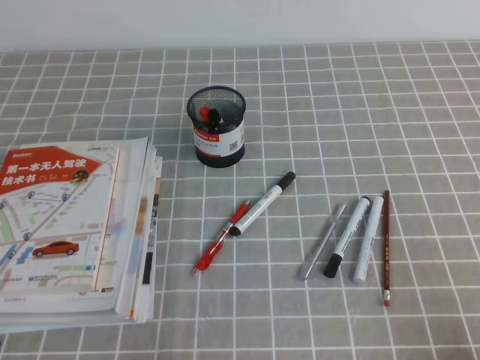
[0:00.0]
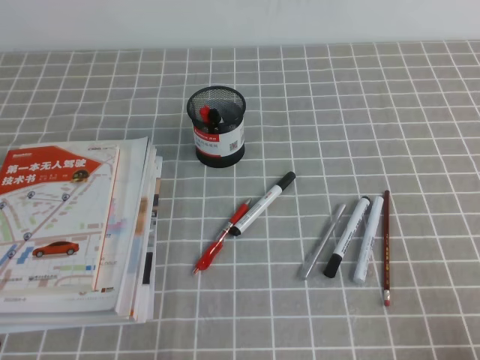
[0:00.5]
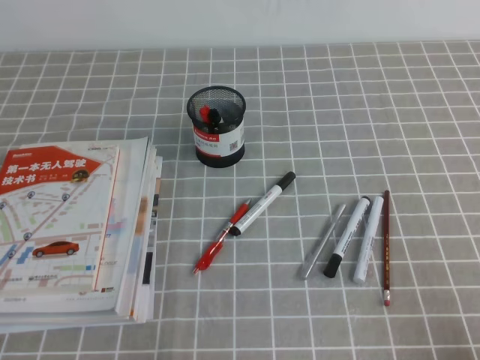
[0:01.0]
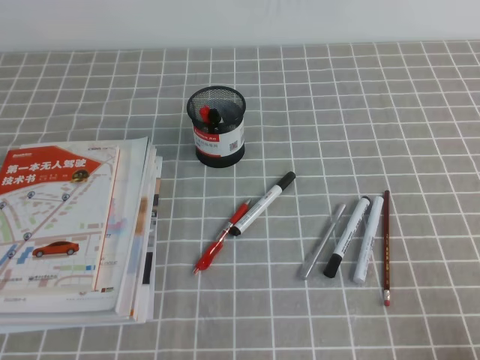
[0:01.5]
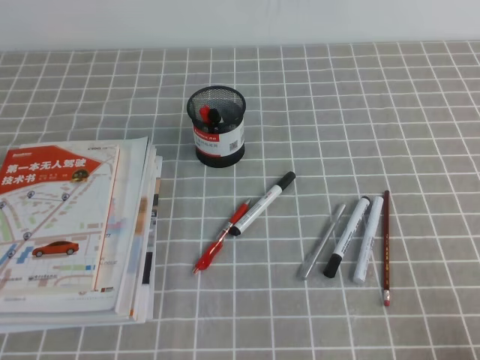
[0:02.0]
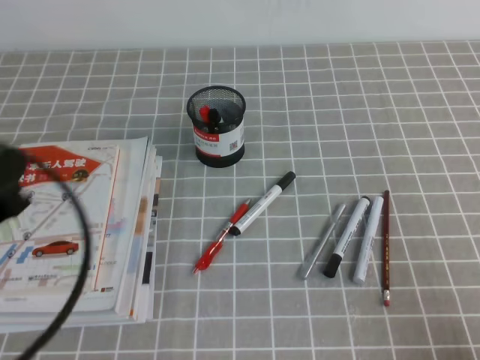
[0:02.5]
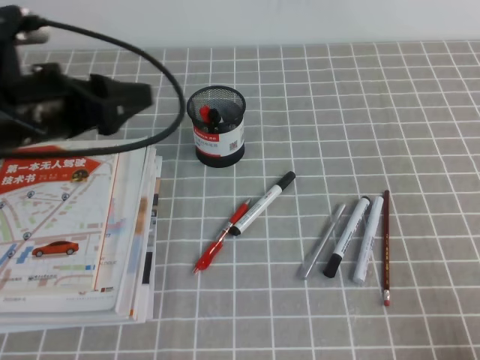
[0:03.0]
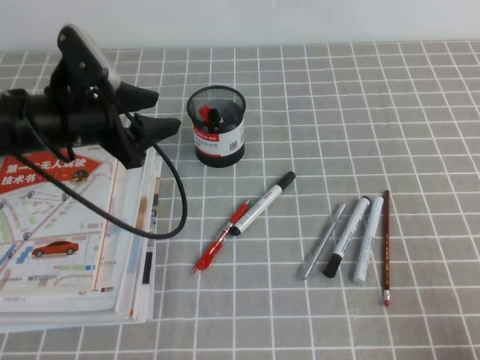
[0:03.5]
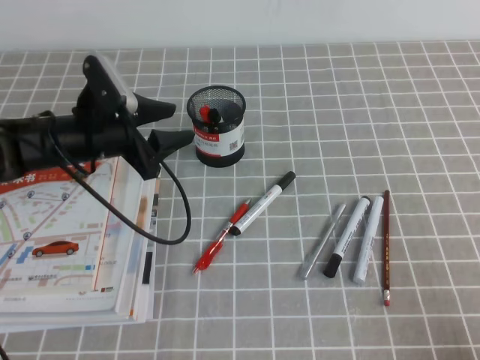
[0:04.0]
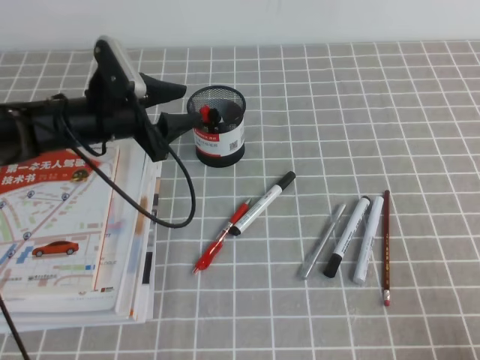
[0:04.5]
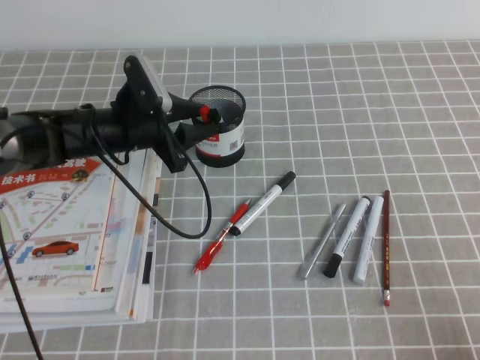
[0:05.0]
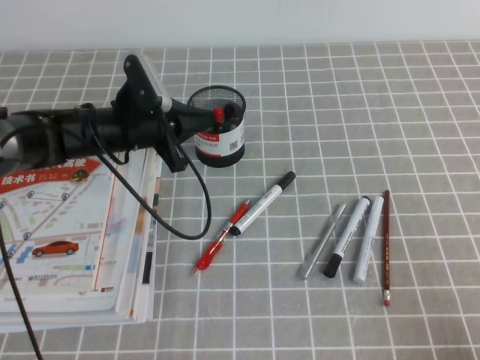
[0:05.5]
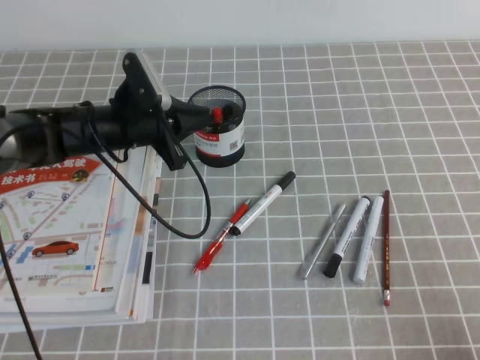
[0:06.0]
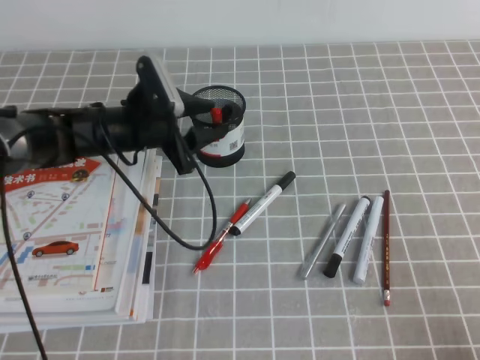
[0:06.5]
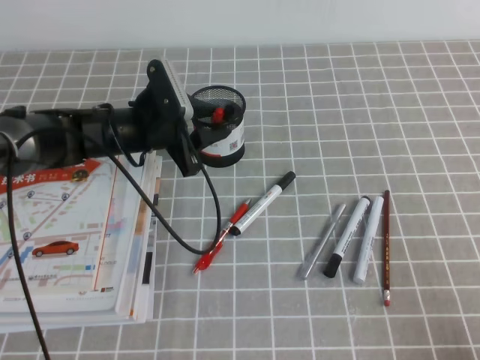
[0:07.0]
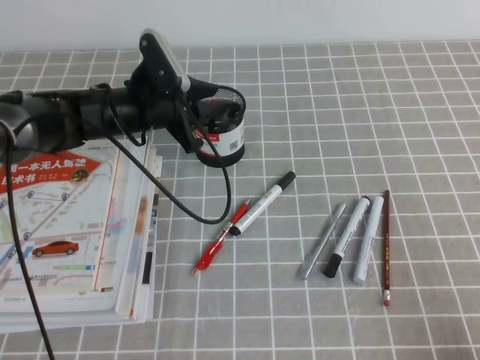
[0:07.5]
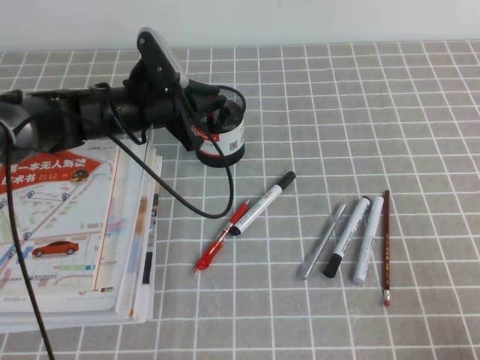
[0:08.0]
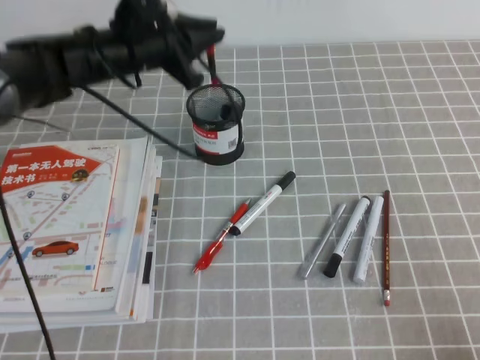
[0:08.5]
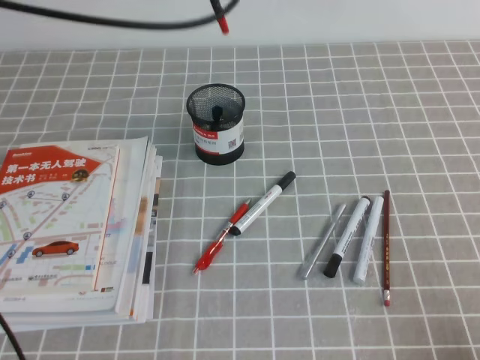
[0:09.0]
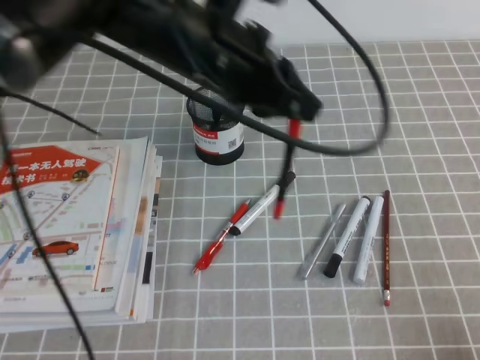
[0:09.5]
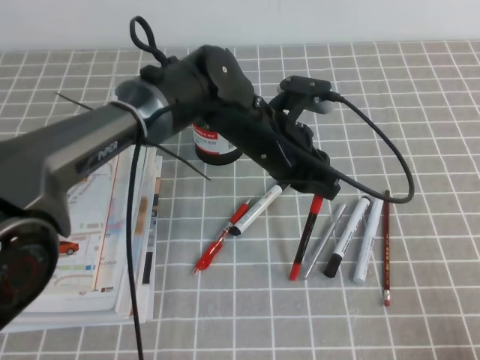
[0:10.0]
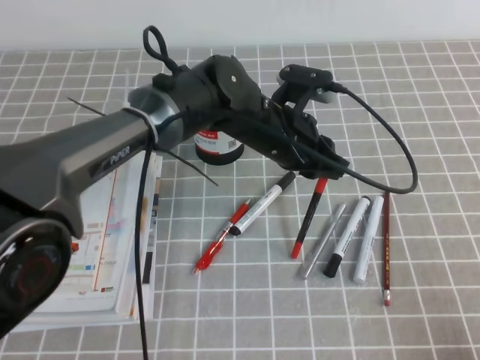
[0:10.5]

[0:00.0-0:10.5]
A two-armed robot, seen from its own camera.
0:02.0 to 0:04.0: The left gripper shifts some 35 cm forward, and opens its fingers.
0:04.0 to 0:06.5: The left gripper shifts by about 5 cm, and closes and opens again.
0:06.5 to 0:08.5: The left gripper moves upward, about 10 cm, and closes its fingers.
0:08.5 to 0:10.5: The left gripper moves to the right and backward, some 20 cm, and moves roughly 15 cm upward and comes back.

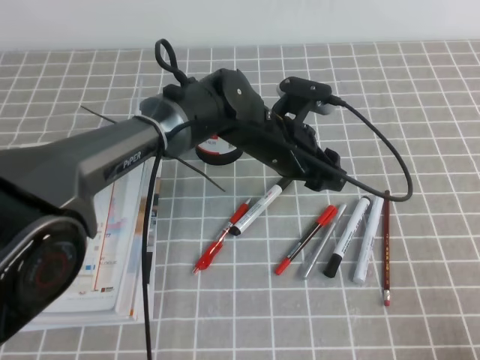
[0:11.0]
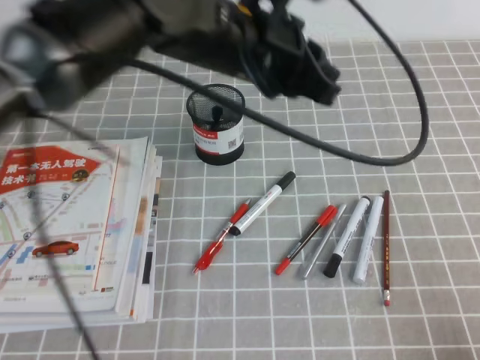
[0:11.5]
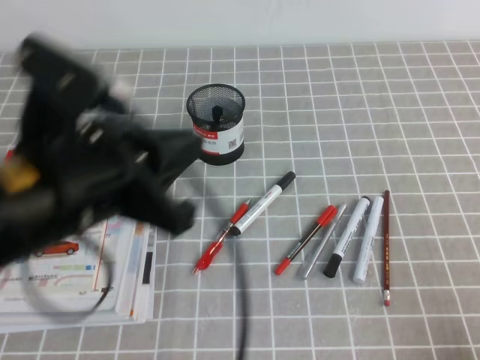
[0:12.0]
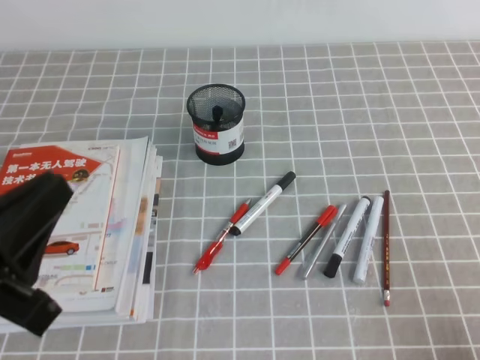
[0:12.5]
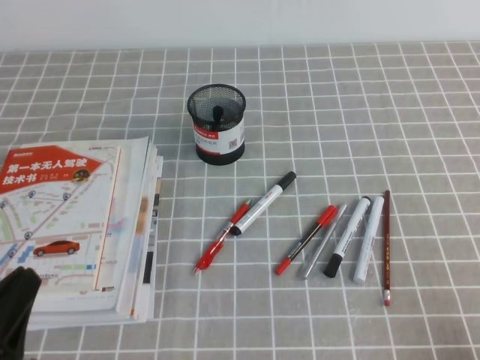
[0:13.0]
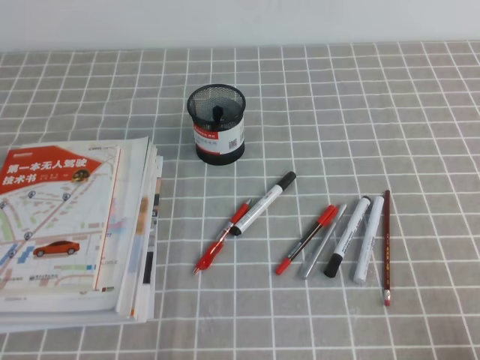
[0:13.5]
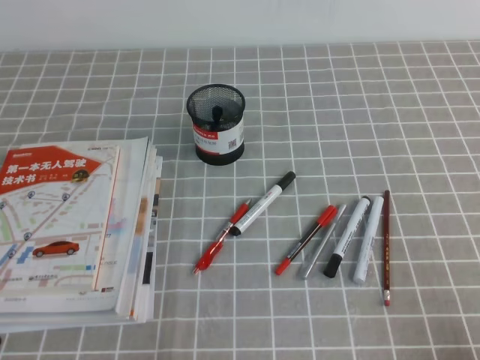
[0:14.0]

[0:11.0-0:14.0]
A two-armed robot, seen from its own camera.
Step, 0:11.0 to 0:14.0: Pick up the pen from the pen holder.
0:11.0 to 0:12.5: The left gripper shifts some 35 cm backward and to the left, and closes its fingers.
0:12.5 to 0:14.0: The left gripper shifts some 15 cm downward and to the left.

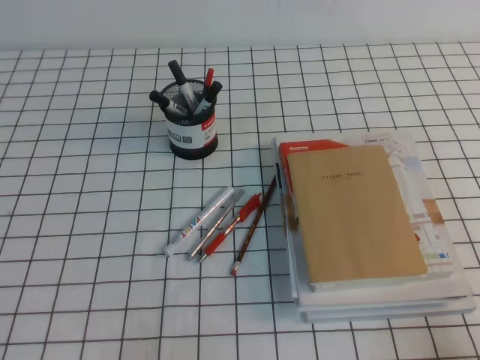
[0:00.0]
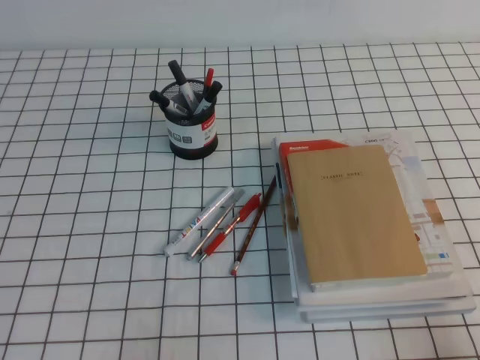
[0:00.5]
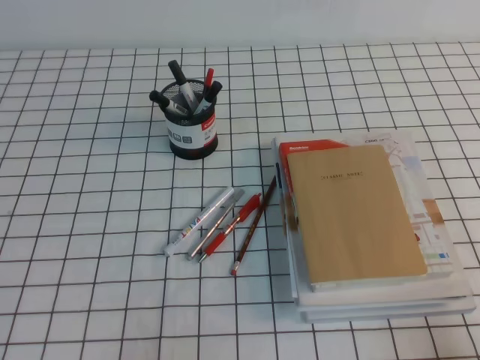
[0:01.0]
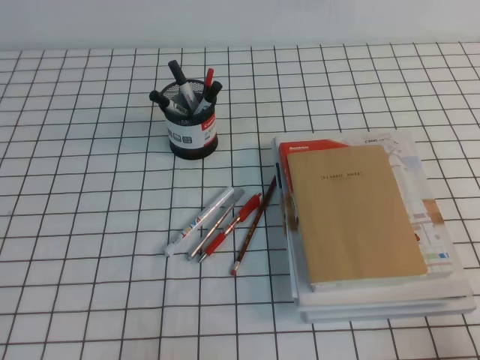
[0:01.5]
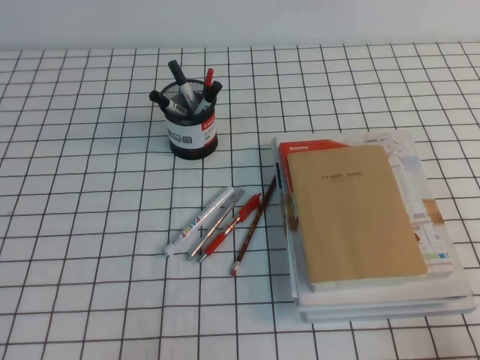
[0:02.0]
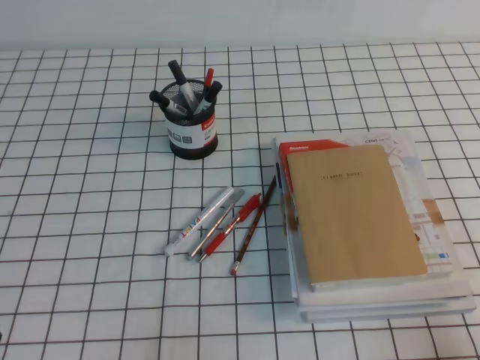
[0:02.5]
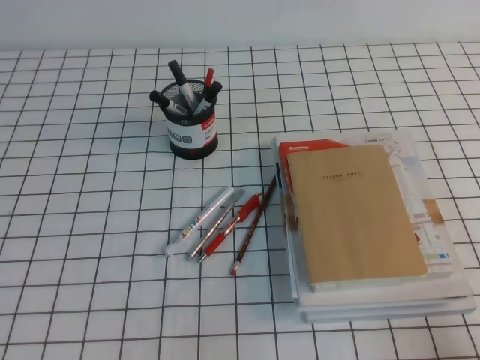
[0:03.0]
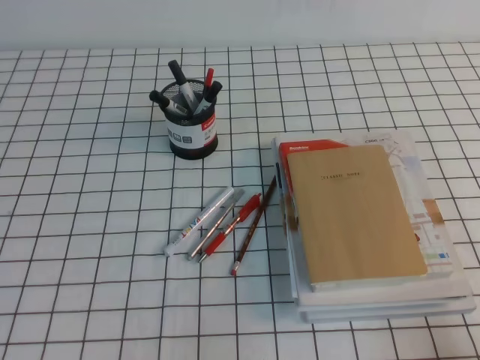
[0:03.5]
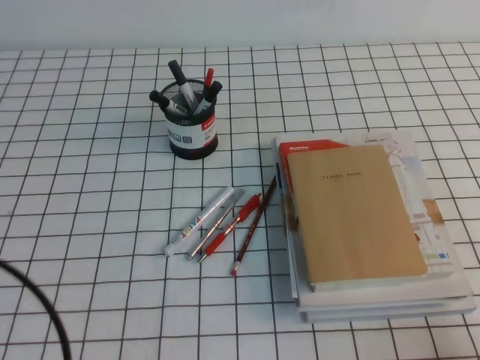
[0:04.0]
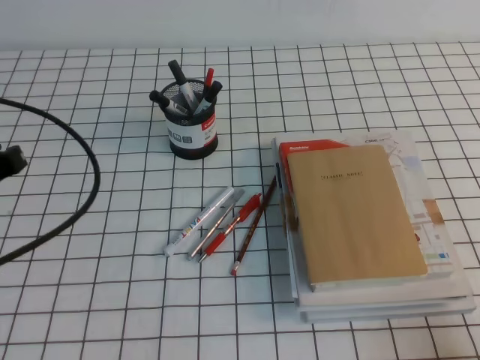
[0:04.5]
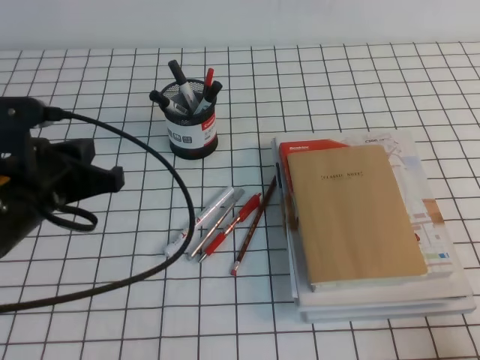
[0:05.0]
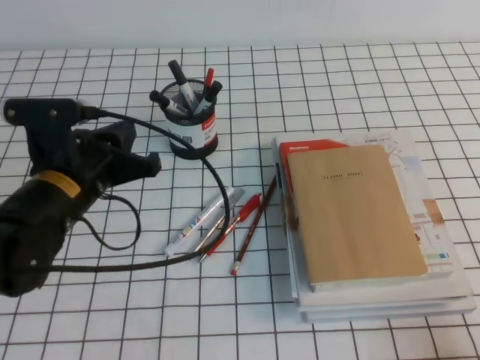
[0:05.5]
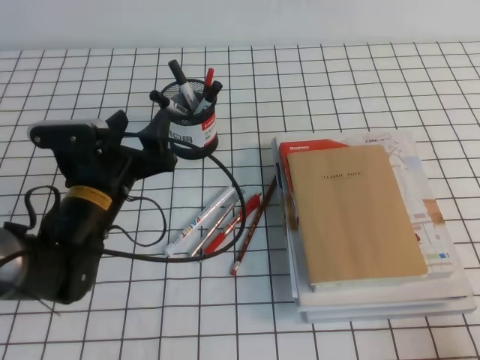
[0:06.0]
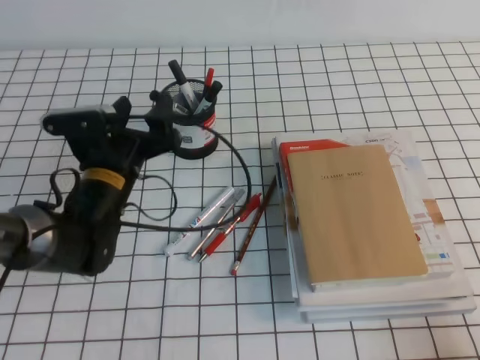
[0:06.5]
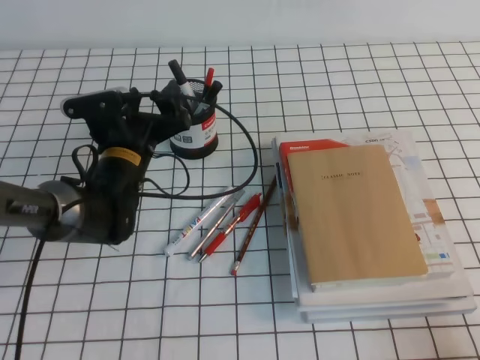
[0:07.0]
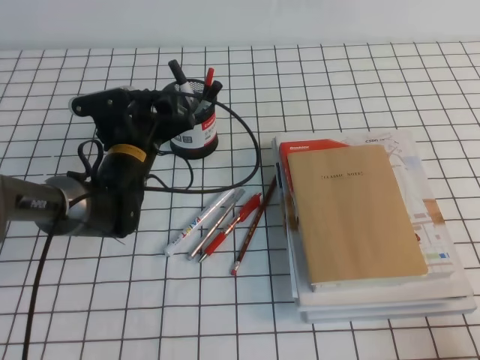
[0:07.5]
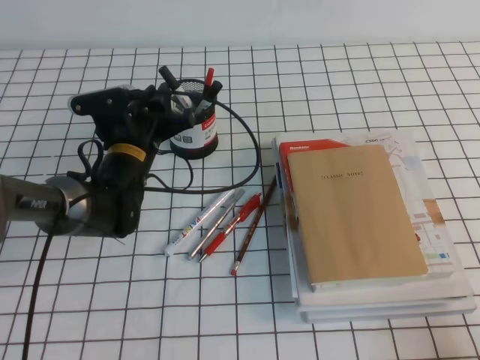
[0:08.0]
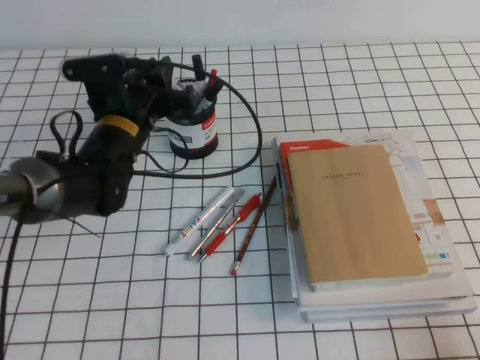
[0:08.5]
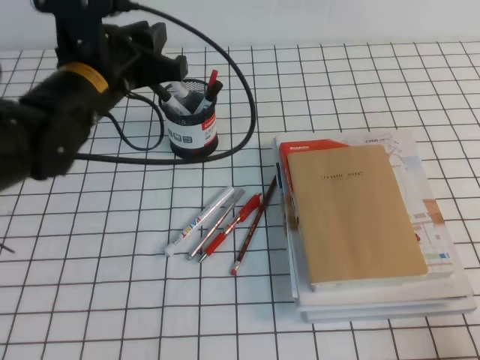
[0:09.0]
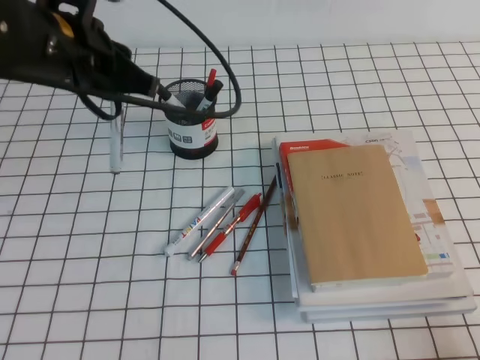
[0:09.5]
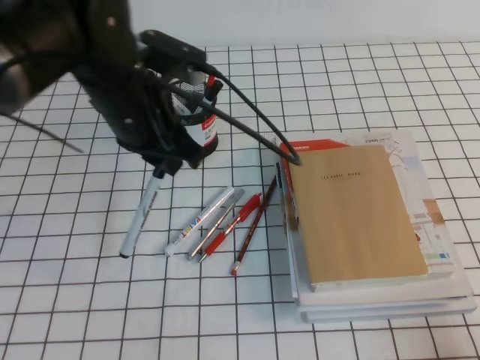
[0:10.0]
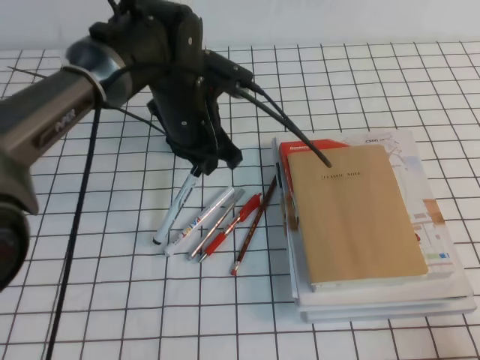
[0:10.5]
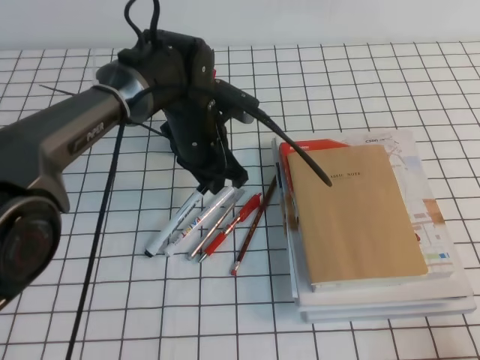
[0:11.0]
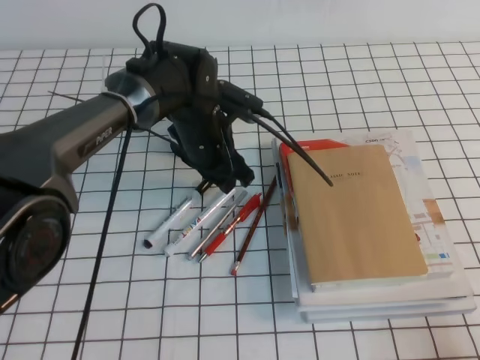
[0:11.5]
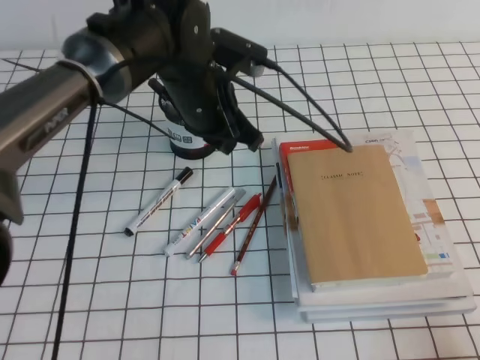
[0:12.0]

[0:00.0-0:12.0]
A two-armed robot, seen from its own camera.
0:00.0 to 0:02.0: Neither gripper changes place.
0:02.0 to 0:04.0: The left gripper is displaced upward by roughly 10 cm.
0:04.0 to 0:06.0: The left gripper moves forward, to the right and downward, roughly 25 cm, and opens its fingers.
0:06.0 to 0:08.0: The left gripper moves forward, approximately 10 cm, and closes up.
0:08.0 to 0:10.0: The left gripper shifts approximately 15 cm upward and backward.
0:10.0 to 0:12.0: The left gripper moves to the right, about 5 cm.
